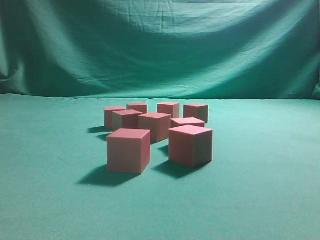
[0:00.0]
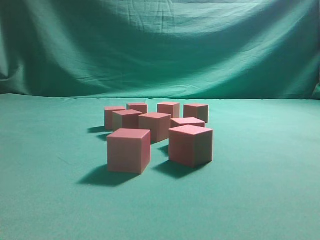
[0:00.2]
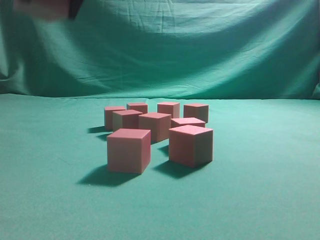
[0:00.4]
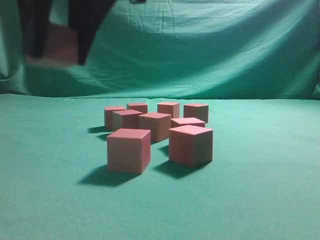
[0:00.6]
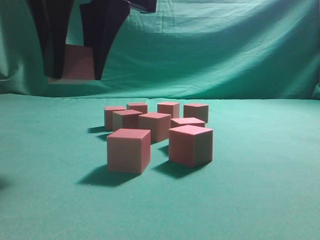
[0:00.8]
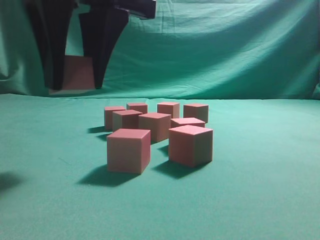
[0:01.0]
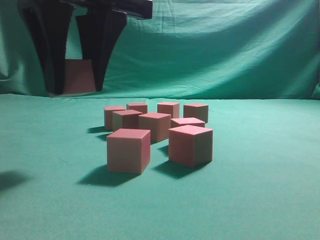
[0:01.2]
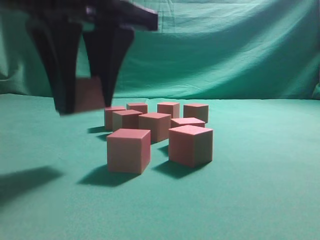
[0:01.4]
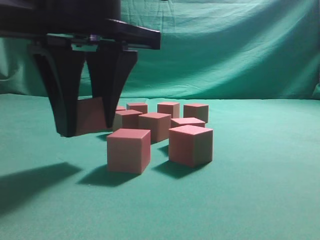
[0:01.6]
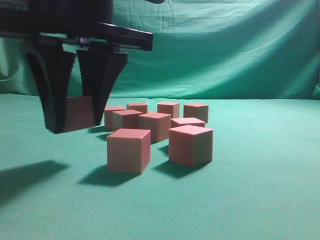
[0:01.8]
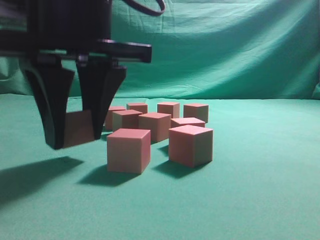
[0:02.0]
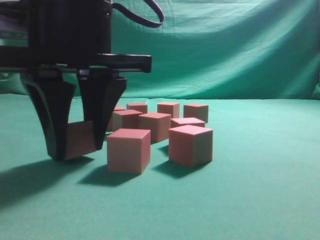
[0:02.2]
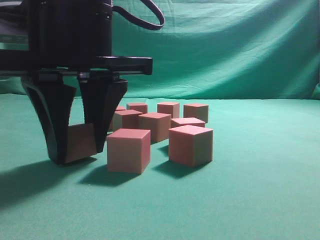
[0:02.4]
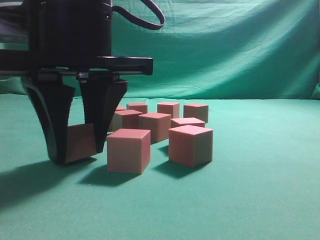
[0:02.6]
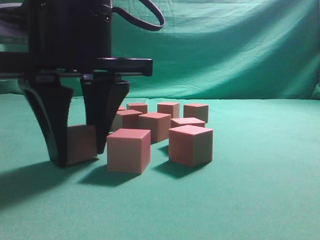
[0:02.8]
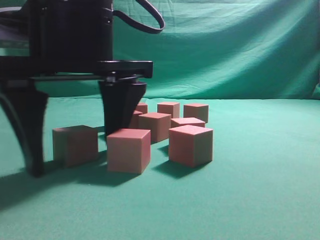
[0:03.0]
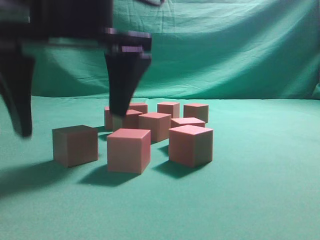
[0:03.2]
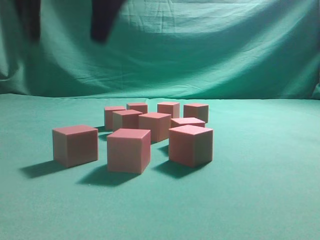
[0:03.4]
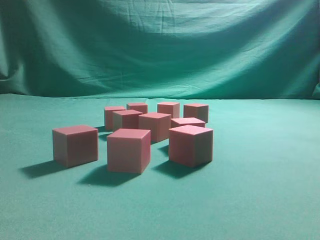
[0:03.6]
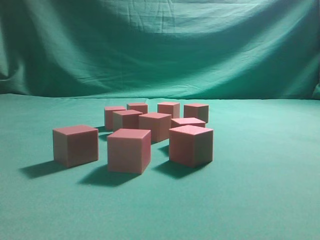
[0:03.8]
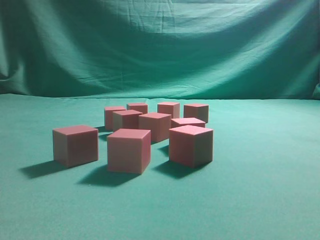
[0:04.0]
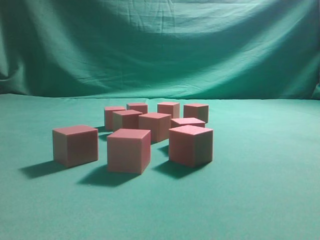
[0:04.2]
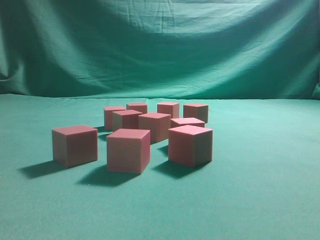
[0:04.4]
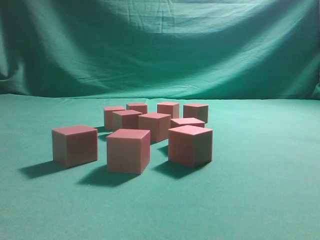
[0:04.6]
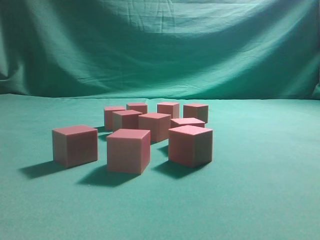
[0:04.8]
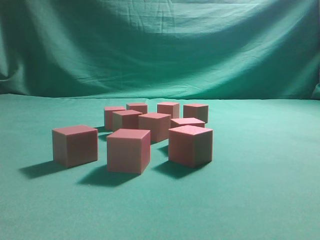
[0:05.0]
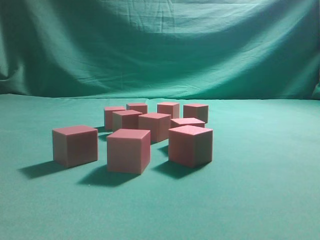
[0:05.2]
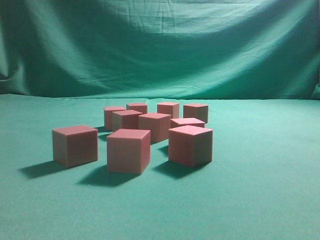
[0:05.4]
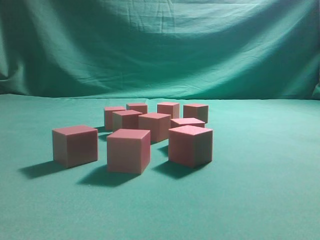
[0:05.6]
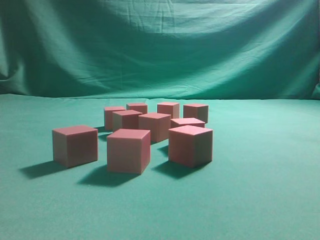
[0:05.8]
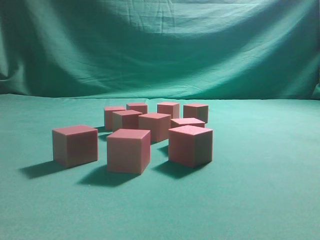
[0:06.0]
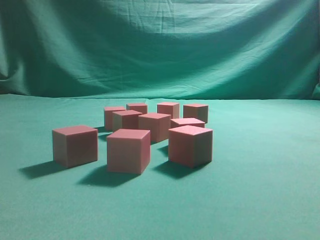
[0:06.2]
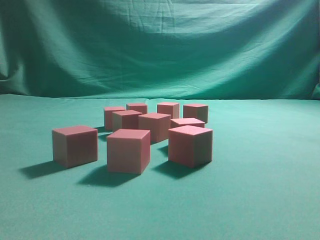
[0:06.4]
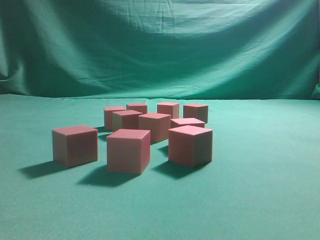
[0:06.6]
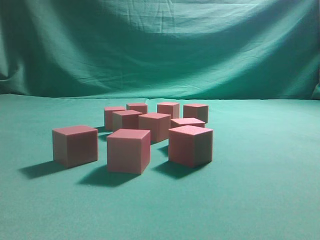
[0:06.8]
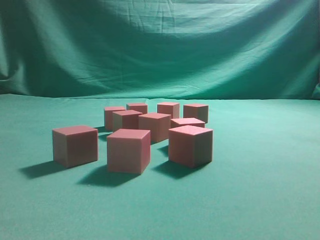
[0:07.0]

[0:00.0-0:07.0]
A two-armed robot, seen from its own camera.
Task of the whole recording: pick up the multiple cubes in two columns one by one and place them in another position on the table.
Step, 0:00.0 to 0:03.2: Place the block at the correct position to assemble the letter S.
0:00.0 to 0:01.4: The right gripper shifts roughly 20 cm downward and to the left.
0:01.4 to 0:02.8: The grippers move only a little.
0:02.8 to 0:04.2: The right gripper is displaced upward by approximately 35 cm, and closes its fingers.
